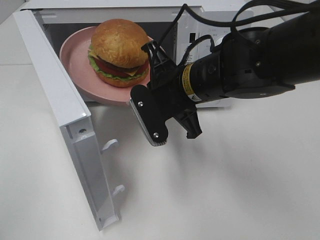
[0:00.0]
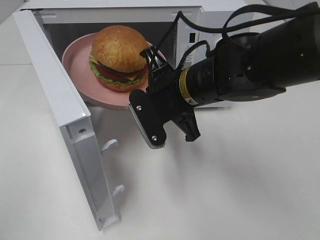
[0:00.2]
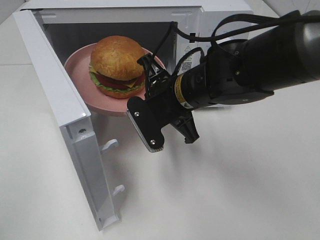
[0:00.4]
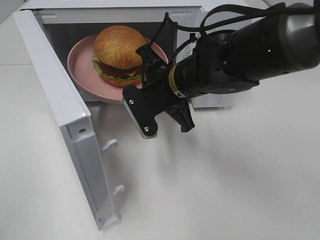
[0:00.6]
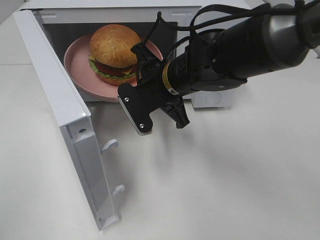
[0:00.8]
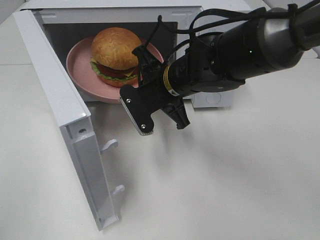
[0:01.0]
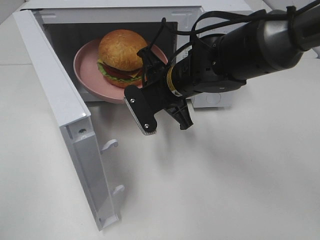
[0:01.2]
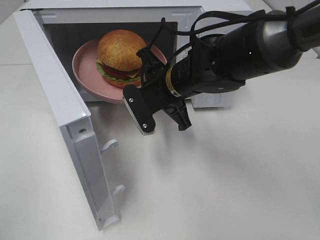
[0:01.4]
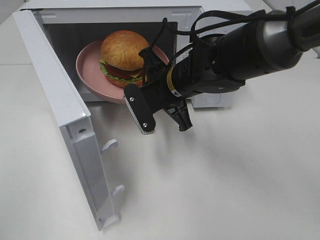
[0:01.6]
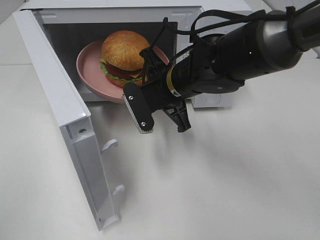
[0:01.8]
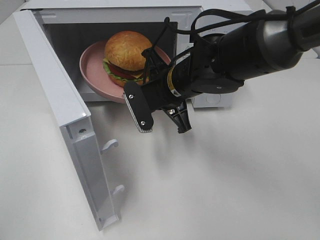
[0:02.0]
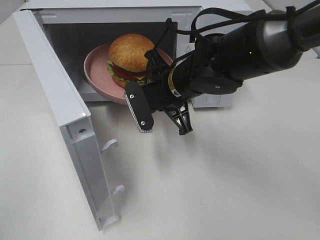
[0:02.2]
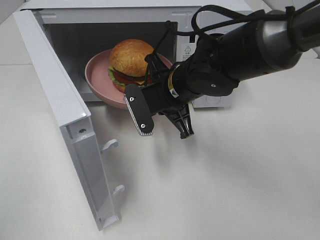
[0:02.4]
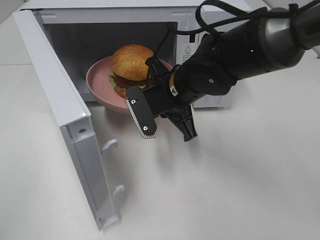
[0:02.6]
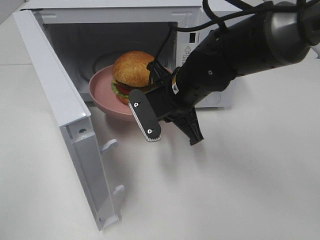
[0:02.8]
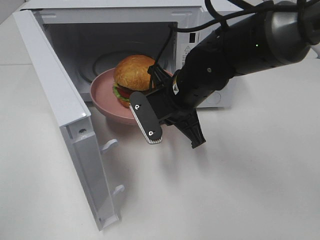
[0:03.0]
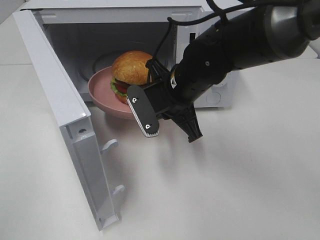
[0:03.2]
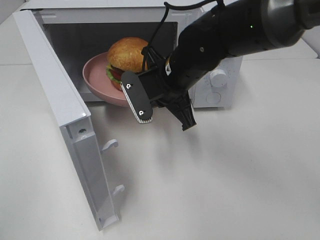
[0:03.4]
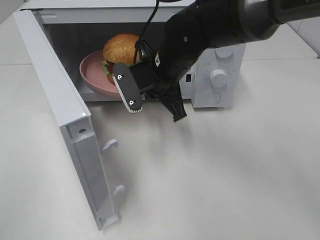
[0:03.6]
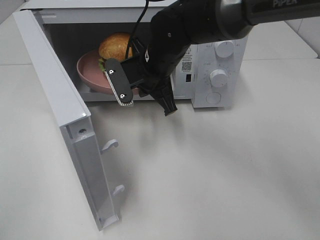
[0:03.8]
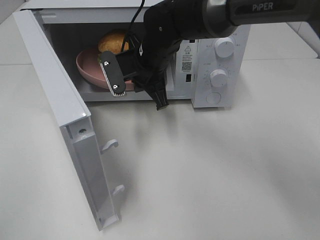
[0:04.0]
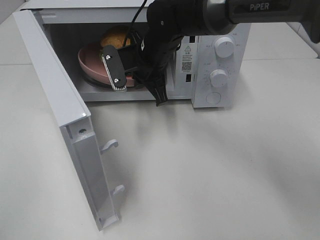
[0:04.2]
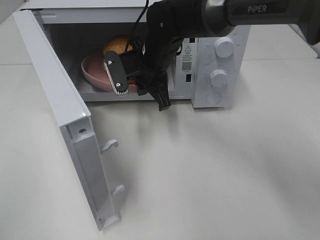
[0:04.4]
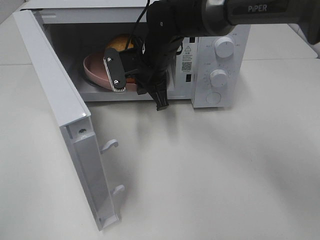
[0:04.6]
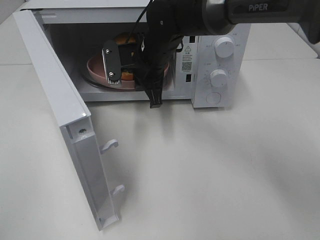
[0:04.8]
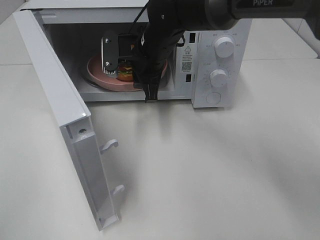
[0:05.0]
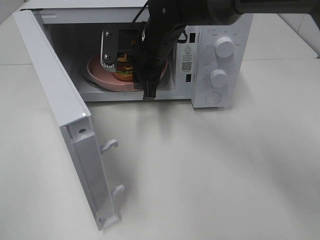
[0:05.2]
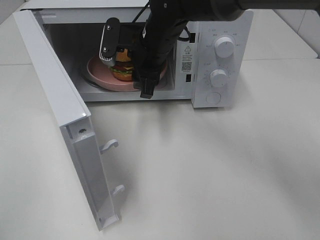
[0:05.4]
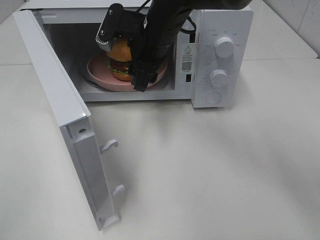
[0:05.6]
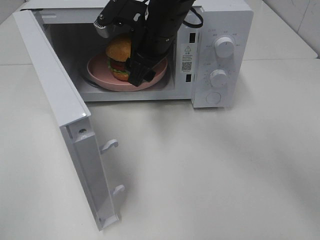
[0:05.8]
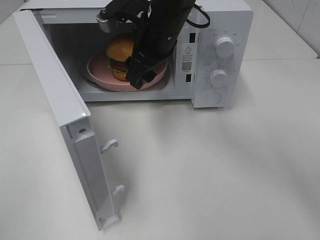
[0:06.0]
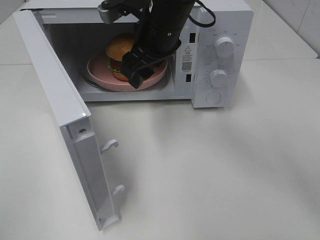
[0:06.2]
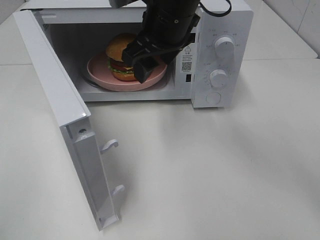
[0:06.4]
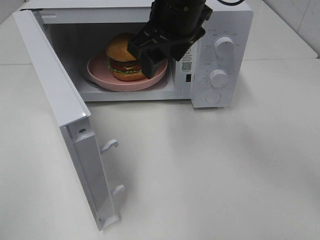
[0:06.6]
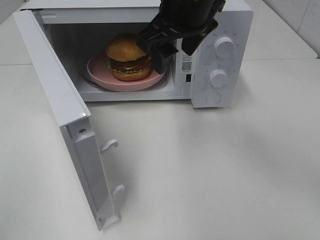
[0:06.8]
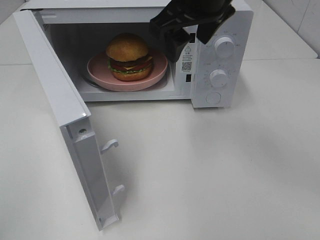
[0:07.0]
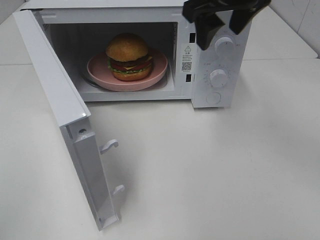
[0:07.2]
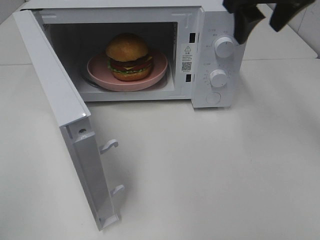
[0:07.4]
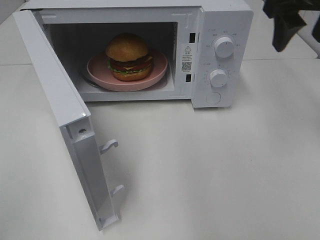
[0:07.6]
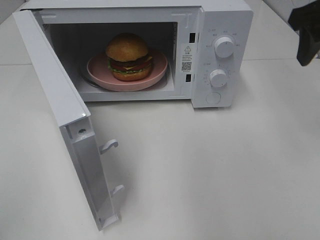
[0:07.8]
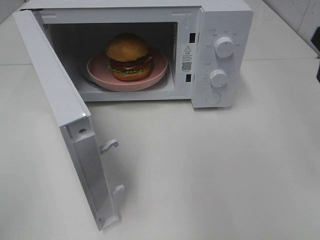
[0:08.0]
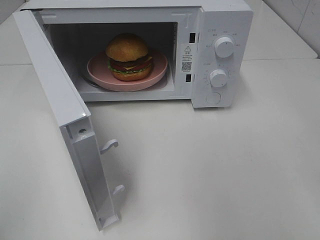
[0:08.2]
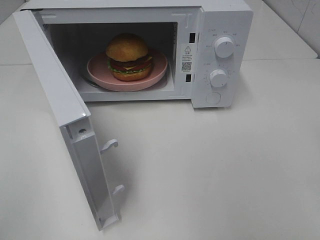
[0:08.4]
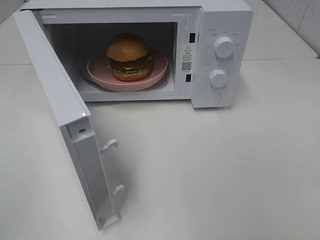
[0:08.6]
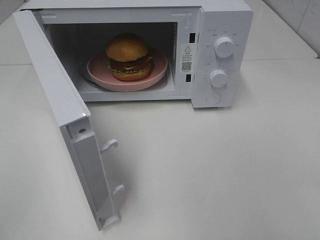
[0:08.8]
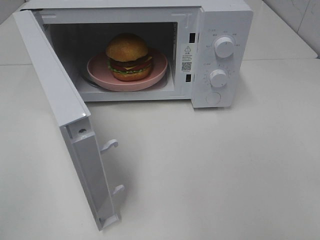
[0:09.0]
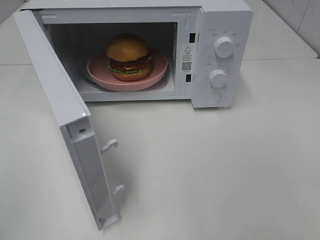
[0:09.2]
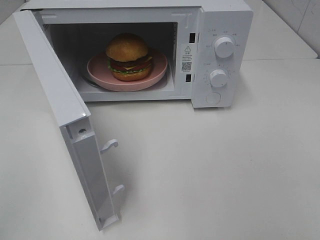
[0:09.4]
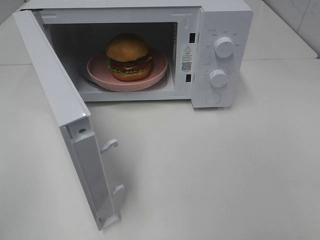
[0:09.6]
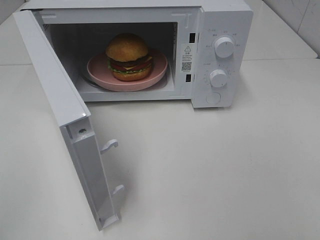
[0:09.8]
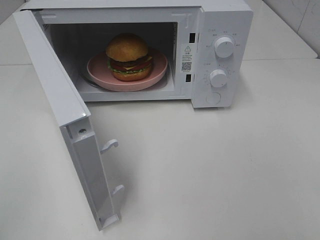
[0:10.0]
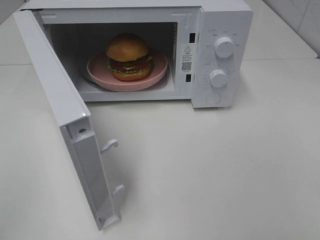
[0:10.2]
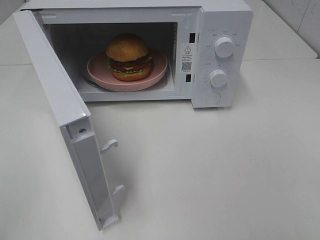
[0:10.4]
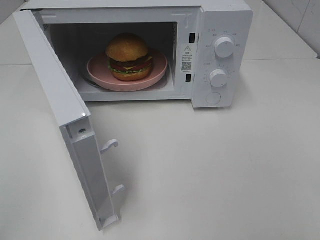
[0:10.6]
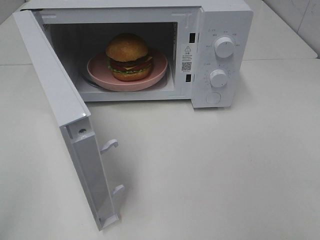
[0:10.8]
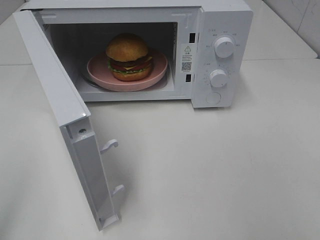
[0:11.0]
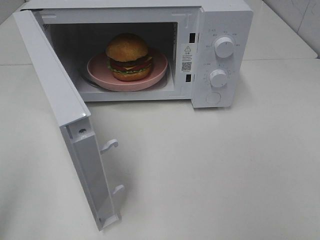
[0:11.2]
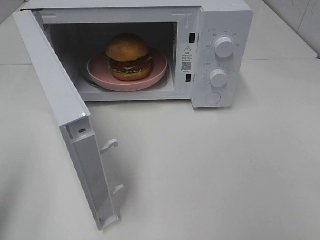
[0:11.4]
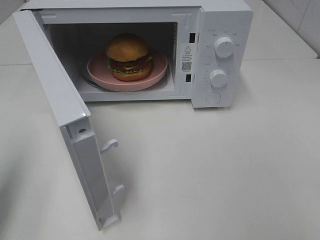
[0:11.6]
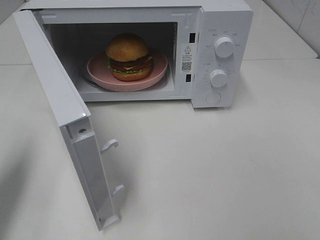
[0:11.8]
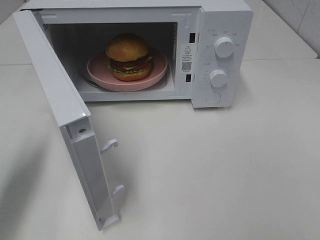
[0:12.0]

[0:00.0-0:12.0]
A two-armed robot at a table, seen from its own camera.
Task of the whole recording: Heat the burger.
Step, 0:00.0 to 0:04.8: Right hand: place the plate in the microwave.
0:00.0 to 0:01.6: The right gripper ends up roughly 5 cm from where it was.
0:01.6 to 0:03.0: There are only small adjustments of the grippers.
0:03.0 to 0:04.4: The right gripper heads forward and to the left, covering about 10 cm.
0:04.4 to 0:06.0: The right gripper goes about 5 cm upward, and opens its fingers.
0:06.0 to 0:07.6: The right gripper heads to the right and upward, covering about 25 cm.
0:07.6 to 0:09.0: The right gripper moves backward, approximately 30 cm.
0:10.4 to 0:12.0: The left gripper goes about 20 cm forward.

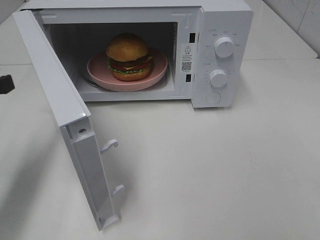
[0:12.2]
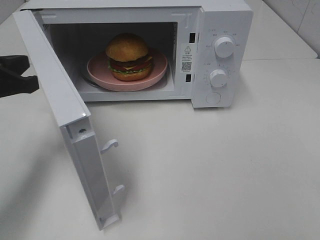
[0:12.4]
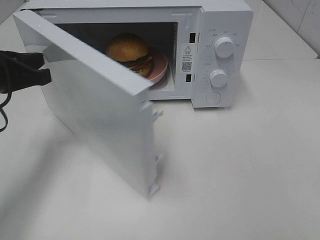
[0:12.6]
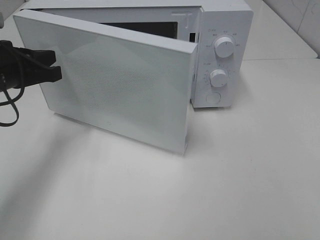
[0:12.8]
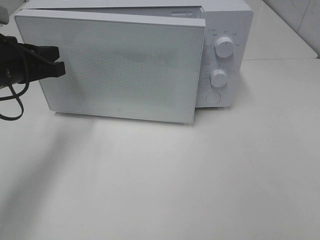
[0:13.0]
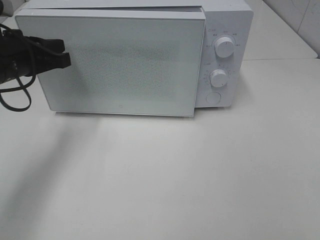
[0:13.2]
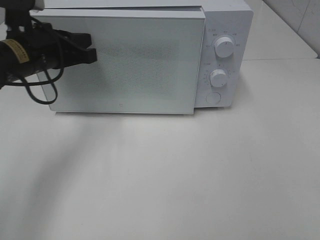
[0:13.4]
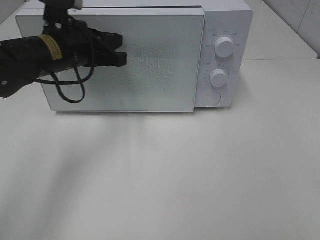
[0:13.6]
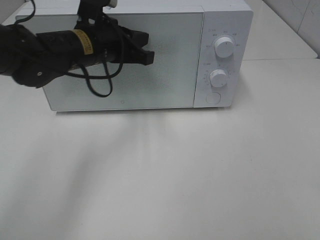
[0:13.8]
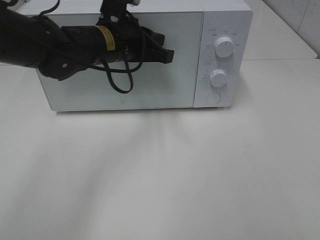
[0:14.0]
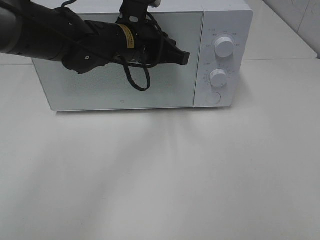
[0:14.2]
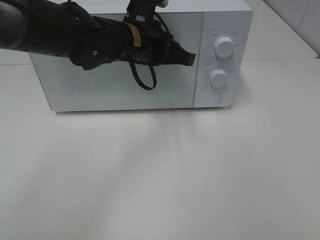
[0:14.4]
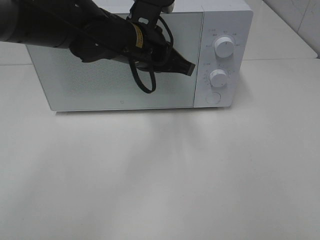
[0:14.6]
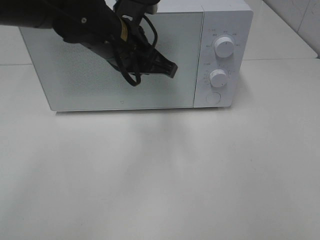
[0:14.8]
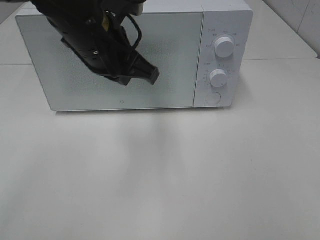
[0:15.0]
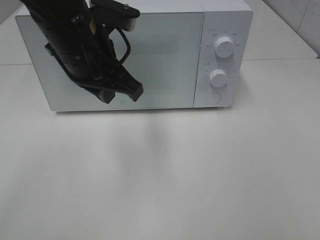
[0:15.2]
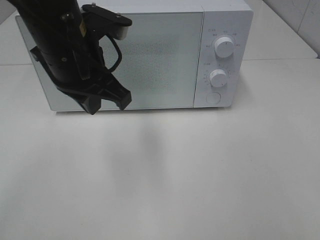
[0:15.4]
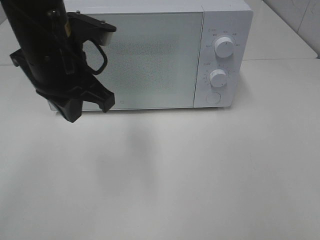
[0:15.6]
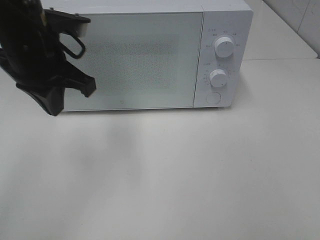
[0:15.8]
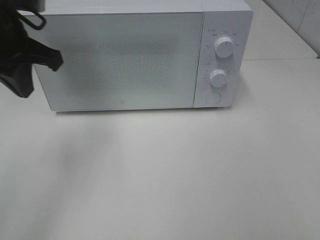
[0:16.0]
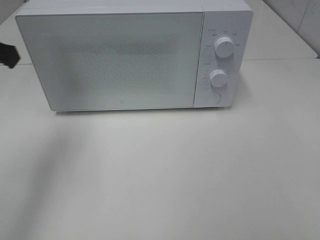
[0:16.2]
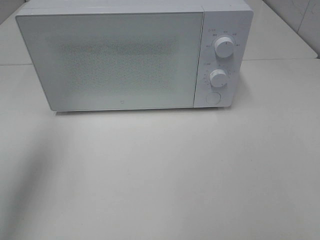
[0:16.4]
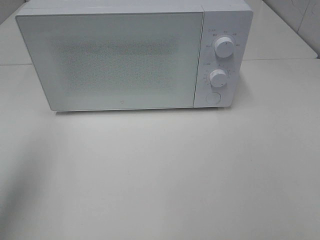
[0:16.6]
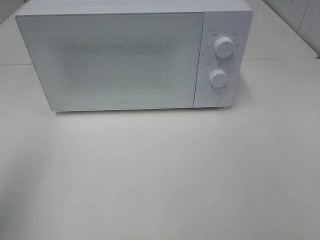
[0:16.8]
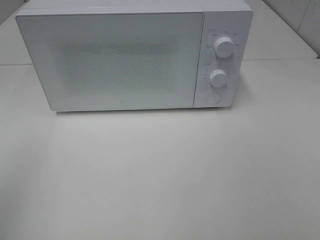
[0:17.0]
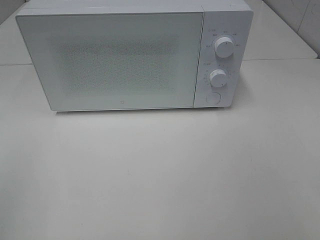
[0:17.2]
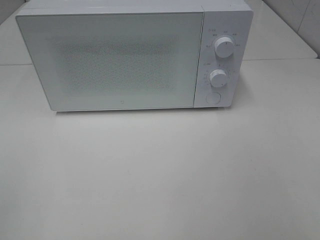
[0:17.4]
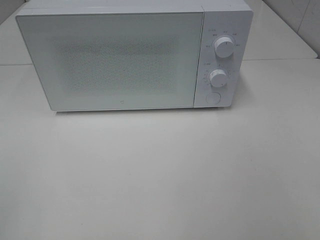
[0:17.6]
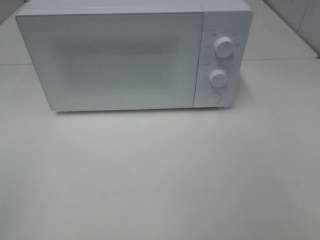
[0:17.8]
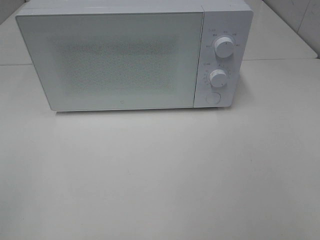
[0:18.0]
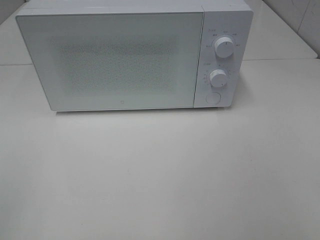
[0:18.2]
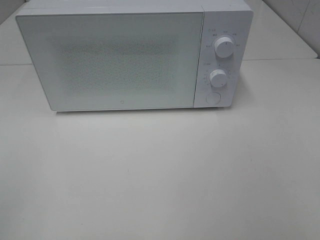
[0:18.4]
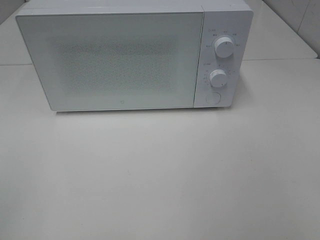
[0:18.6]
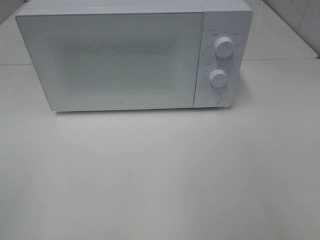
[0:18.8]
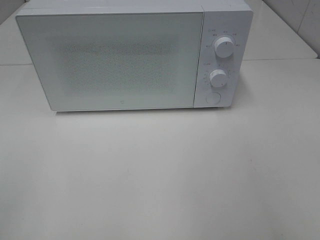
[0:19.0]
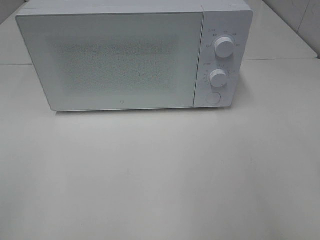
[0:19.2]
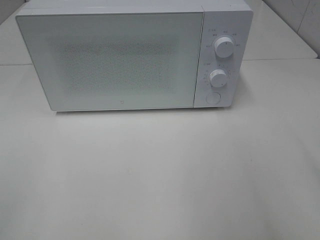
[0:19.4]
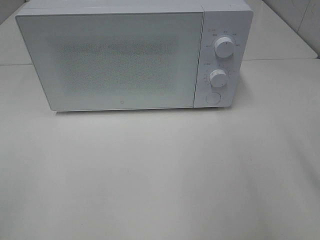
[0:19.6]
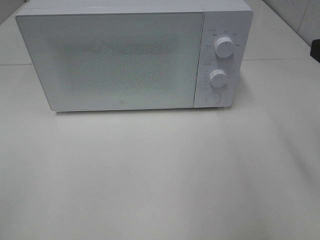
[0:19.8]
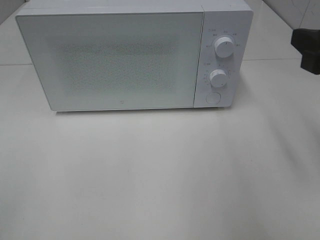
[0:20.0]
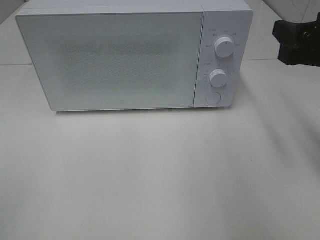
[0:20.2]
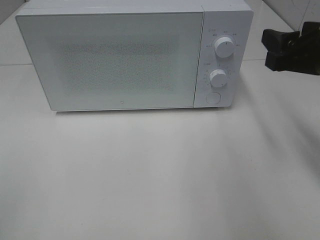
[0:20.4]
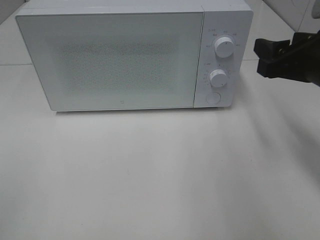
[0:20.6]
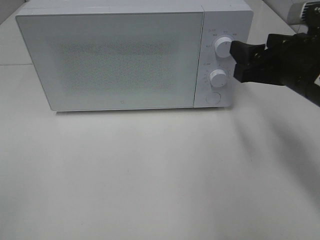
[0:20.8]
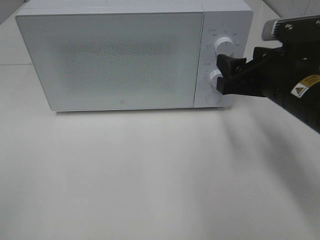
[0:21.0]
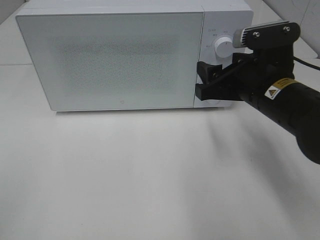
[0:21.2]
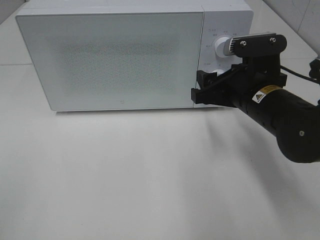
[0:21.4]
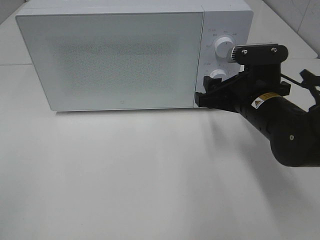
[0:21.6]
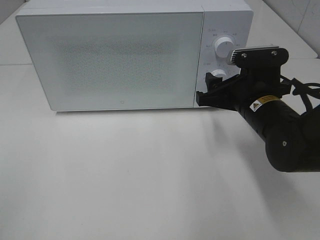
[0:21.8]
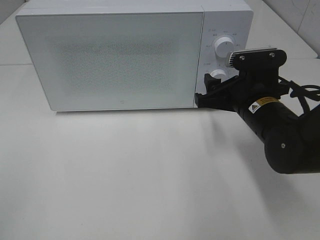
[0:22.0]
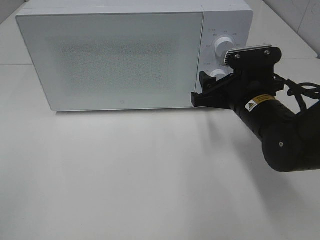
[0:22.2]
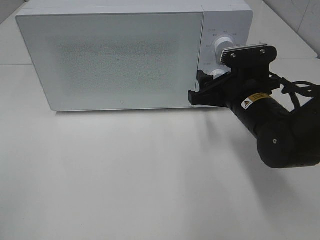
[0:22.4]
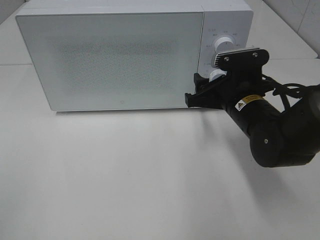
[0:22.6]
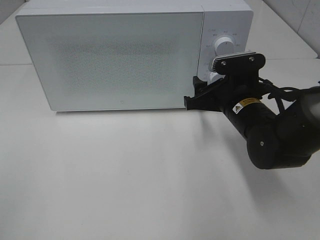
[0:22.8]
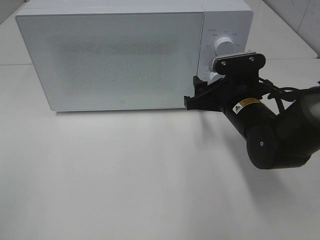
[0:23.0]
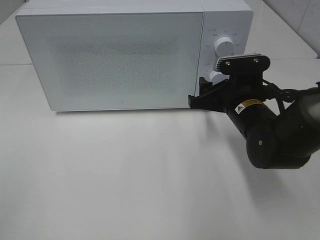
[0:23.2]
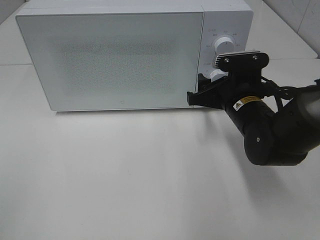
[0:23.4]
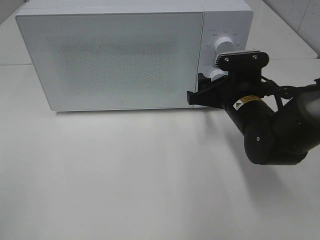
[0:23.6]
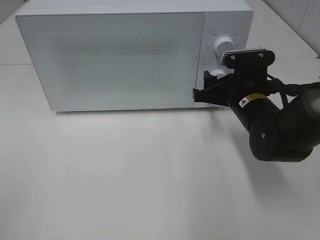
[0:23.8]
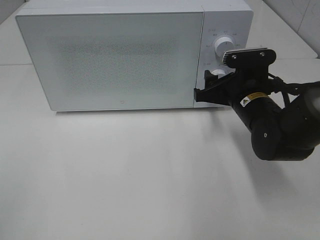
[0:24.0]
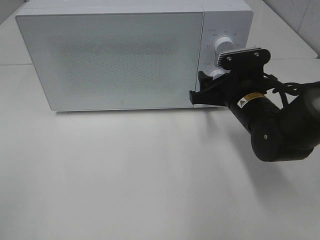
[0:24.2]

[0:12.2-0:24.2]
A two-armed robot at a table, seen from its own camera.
Task of the whole recording: Heat the burger.
0:12.2 to 0:13.8: The left gripper moves to the right and forward, approximately 20 cm.
0:13.8 to 0:15.2: The left gripper is displaced backward and upward by some 10 cm.
0:15.2 to 0:16.6: The left gripper is displaced to the left and backward by some 25 cm.
0:16.6 to 0:18.2: The left gripper moves backward, about 20 cm.
0:19.8 to 0:21.2: The right gripper is displaced to the left, downward and forward by roughly 15 cm.
0:21.2 to 0:22.6: The right gripper heads downward, covering some 5 cm.
0:22.6 to 0:24.2: The grippers move only a little.
